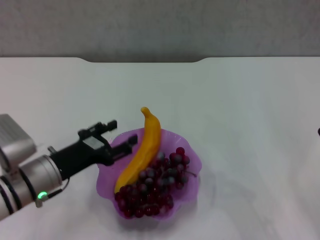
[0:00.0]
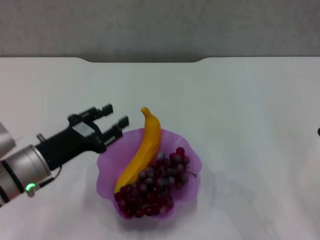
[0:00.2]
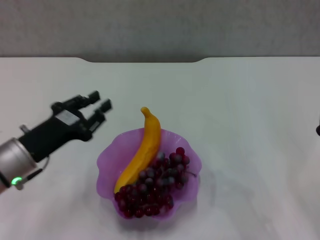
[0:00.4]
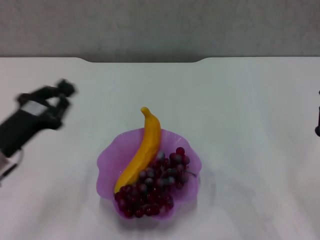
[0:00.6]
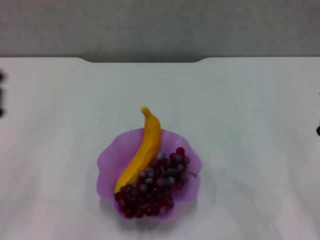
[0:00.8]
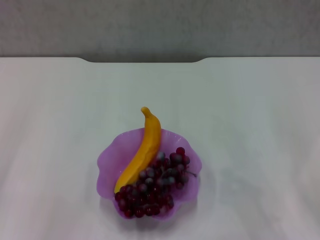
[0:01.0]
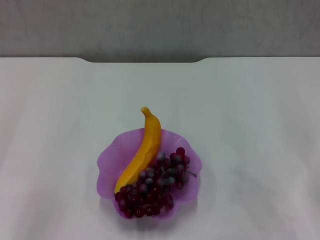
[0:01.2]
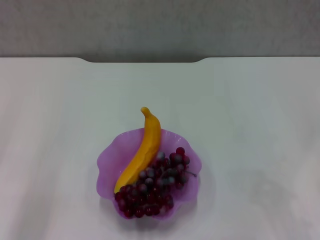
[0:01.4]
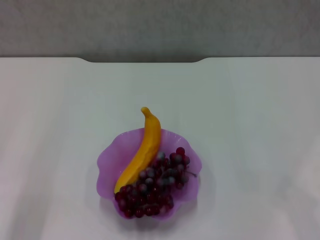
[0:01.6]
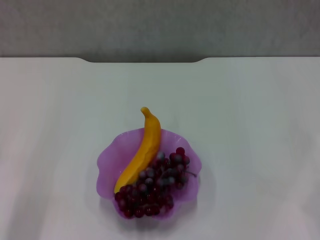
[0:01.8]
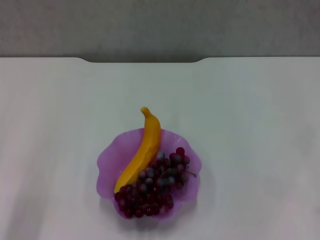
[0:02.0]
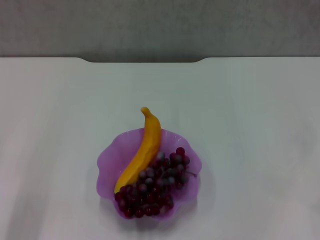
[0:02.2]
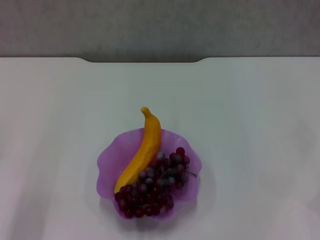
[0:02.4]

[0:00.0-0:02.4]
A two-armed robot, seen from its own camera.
0:00.0 to 0:01.2: The left gripper shifts some 15 cm to the left and backward, and closes up.
